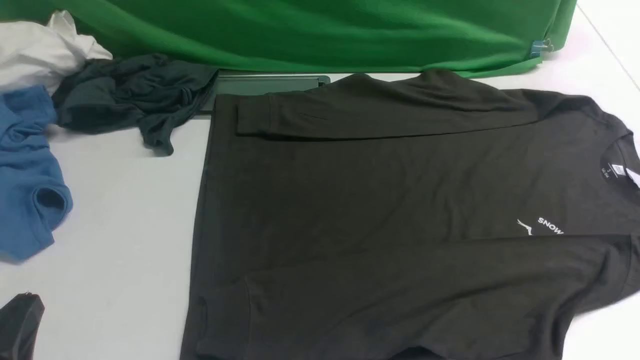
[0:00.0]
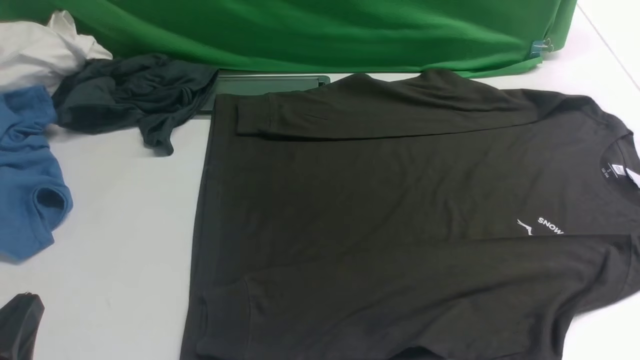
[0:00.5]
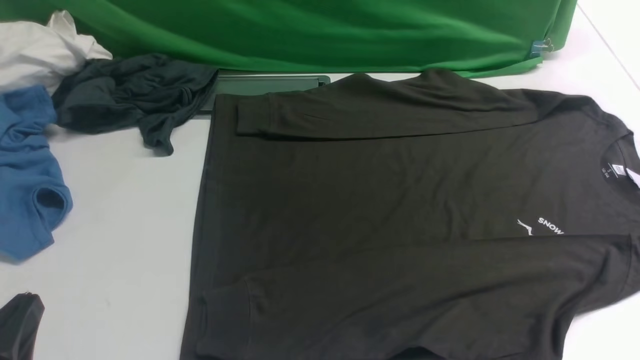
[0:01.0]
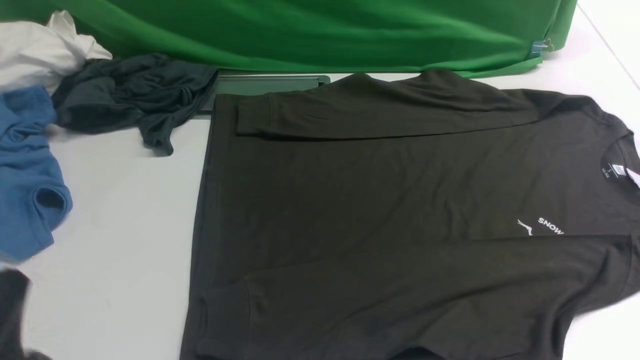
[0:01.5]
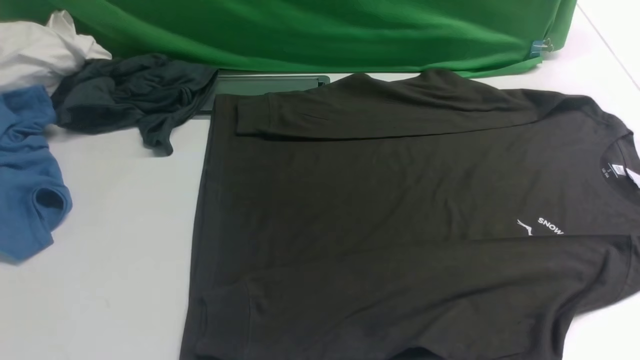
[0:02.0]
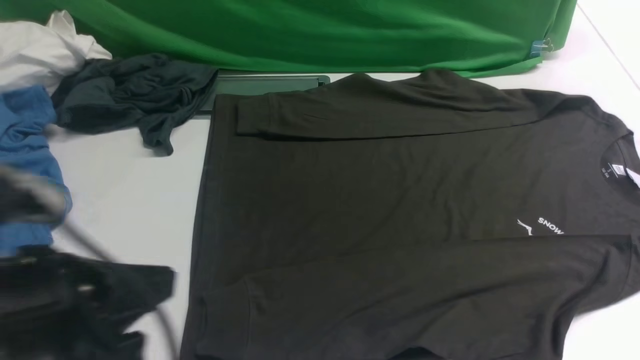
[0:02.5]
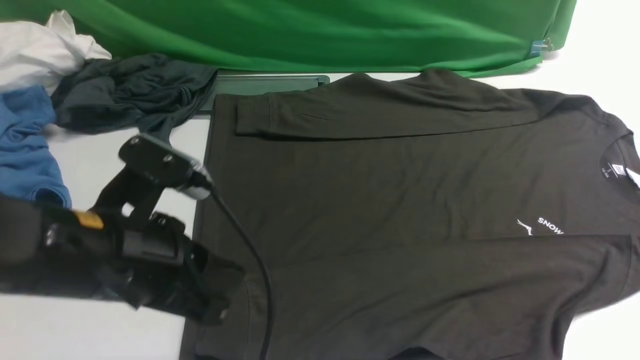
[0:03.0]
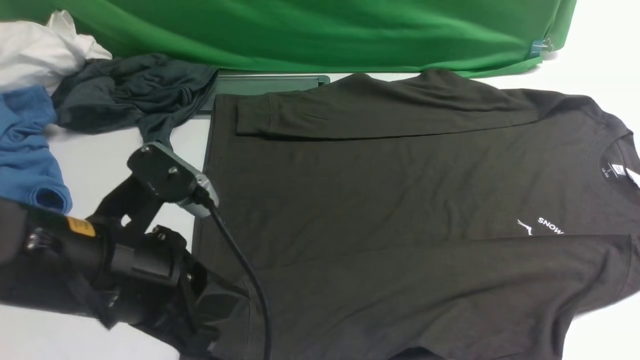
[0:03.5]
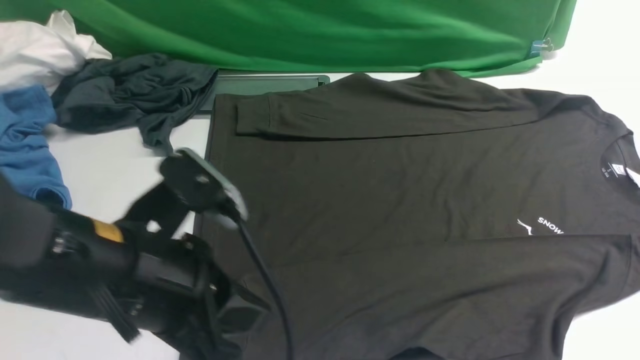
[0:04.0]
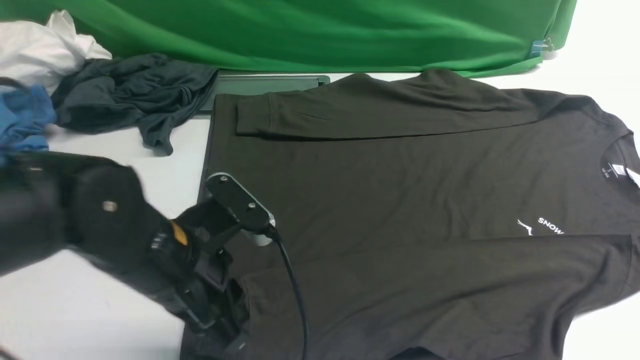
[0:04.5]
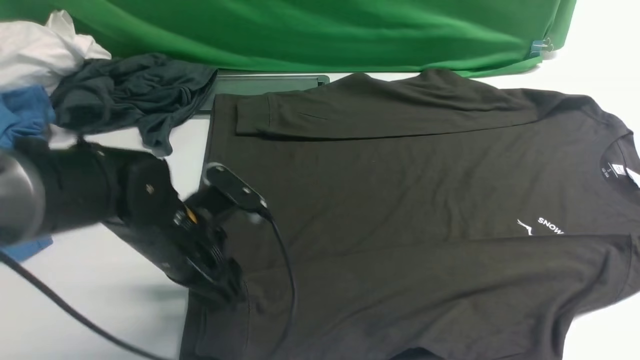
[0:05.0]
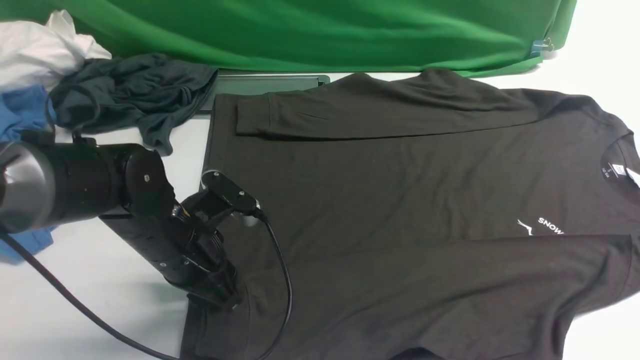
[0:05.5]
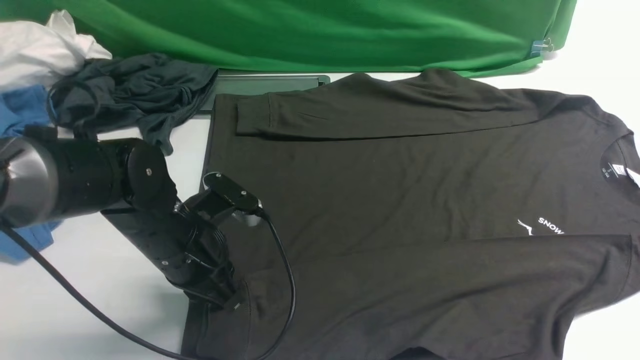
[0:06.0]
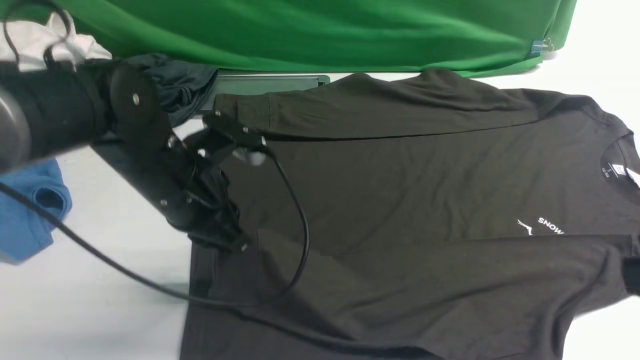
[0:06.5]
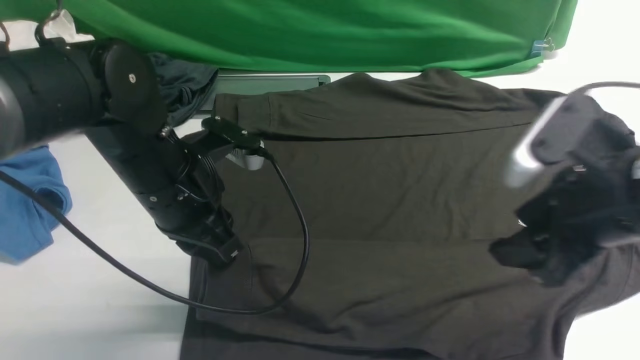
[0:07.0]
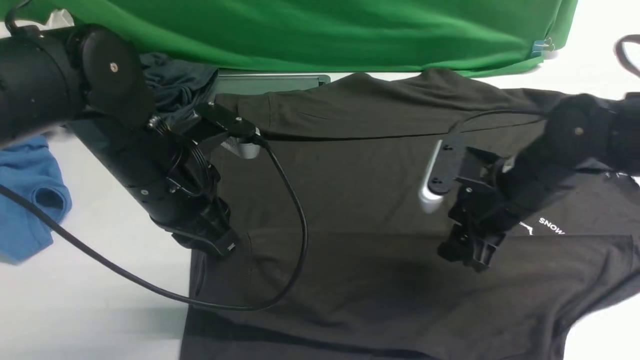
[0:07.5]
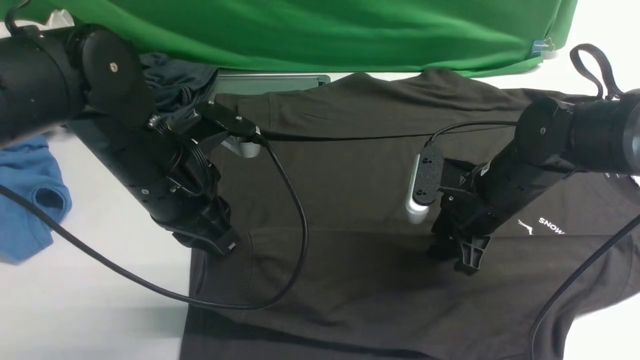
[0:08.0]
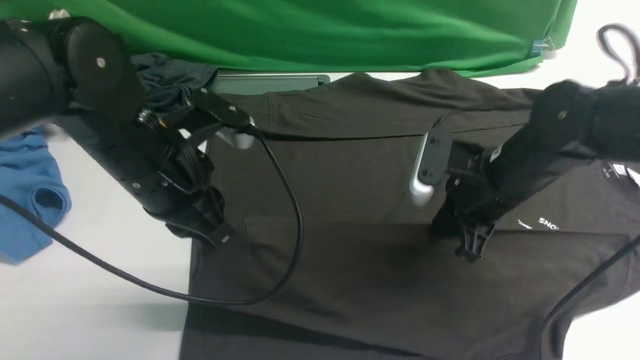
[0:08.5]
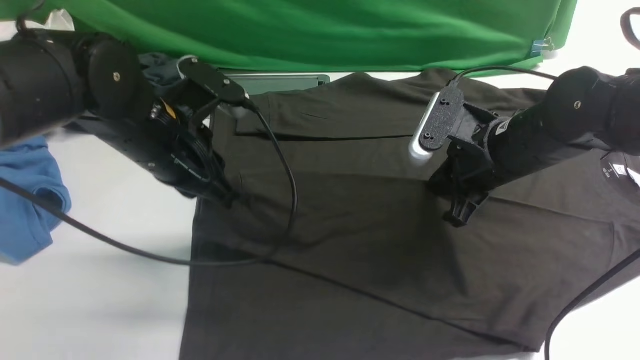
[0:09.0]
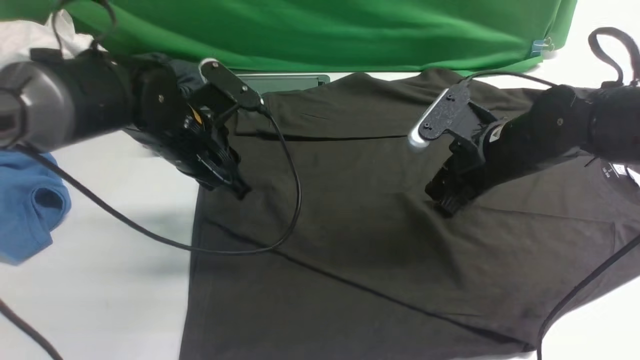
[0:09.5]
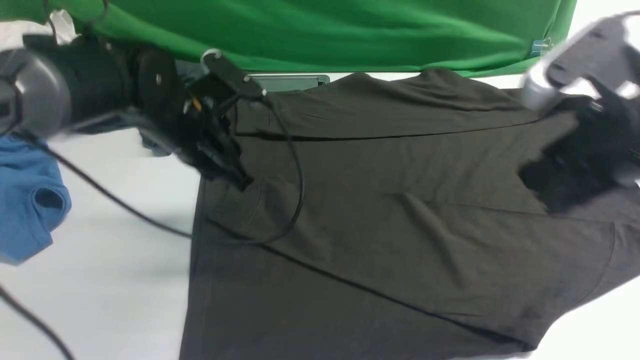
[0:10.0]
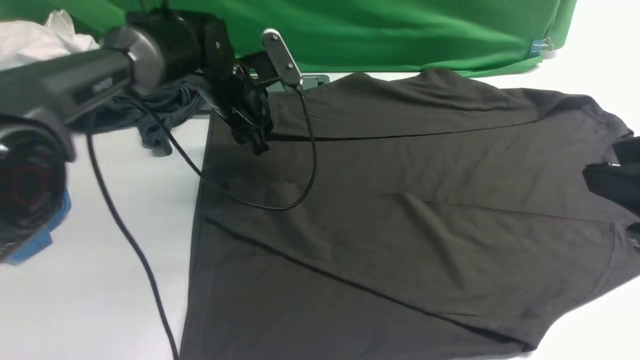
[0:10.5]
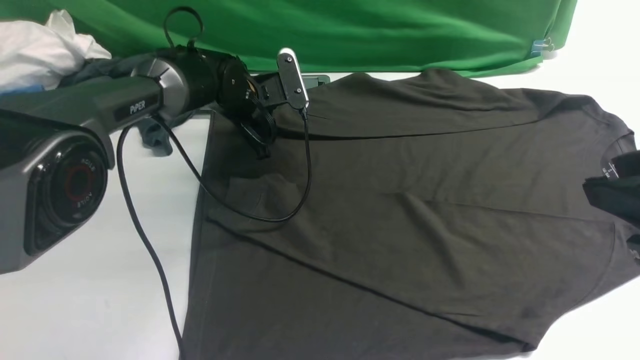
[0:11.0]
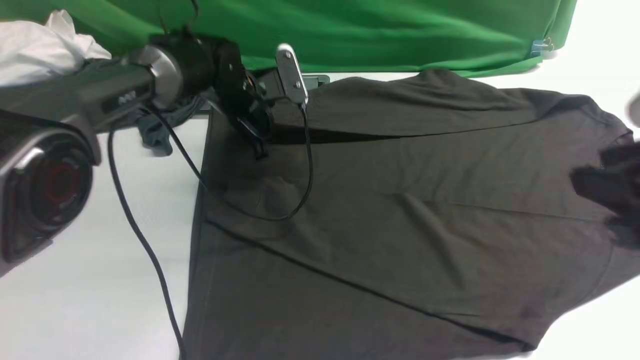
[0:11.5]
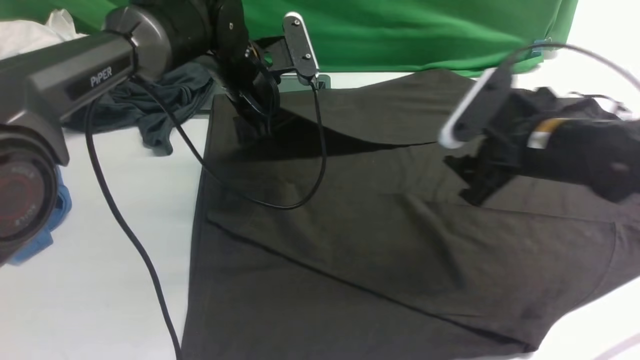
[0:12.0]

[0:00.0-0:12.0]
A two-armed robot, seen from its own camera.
Step, 0:00.0 to 0:06.5: use the left arm to clamp the cuff closest to it.
Step, 0:07.0 to 0:09.5: use the left arm to drag and place the cuff at the centered position on the left edge of the fabric.
Step, 0:10.0 to 0:11.0: use the left arm to clamp the cuff farthest from it.
0:00.0 to 0:02.0: The left gripper heads upward, covering some 10 cm.
0:02.0 to 0:04.0: The right gripper goes some 10 cm upward, while the left gripper heads forward and to the right, covering about 15 cm.
0:04.0 to 0:06.0: The left gripper travels downward and forward by roughly 15 cm, and opens and closes again; the right gripper moves upward, about 5 cm.
0:06.0 to 0:08.0: The right gripper moves forward and downward, about 35 cm, and opens and closes again. The left gripper shifts roughly 10 cm upward.
0:08.0 to 0:10.0: The right gripper shifts some 20 cm upward and backward, and closes, then opens again, while the left gripper goes roughly 10 cm forward, and opens its fingers.
0:10.0 to 0:12.0: The left gripper travels forward by approximately 5 cm, and opens, then closes again. Meanwhile the right gripper moves forward and downward, about 15 cm, and opens up.

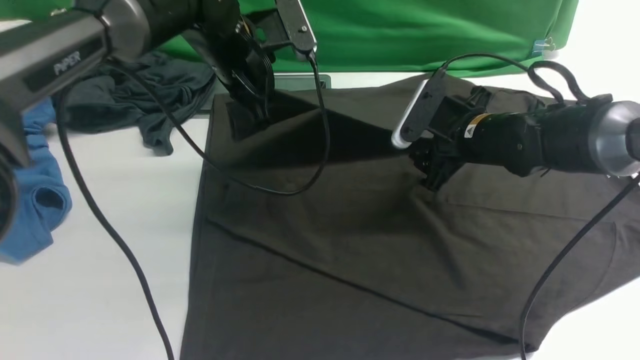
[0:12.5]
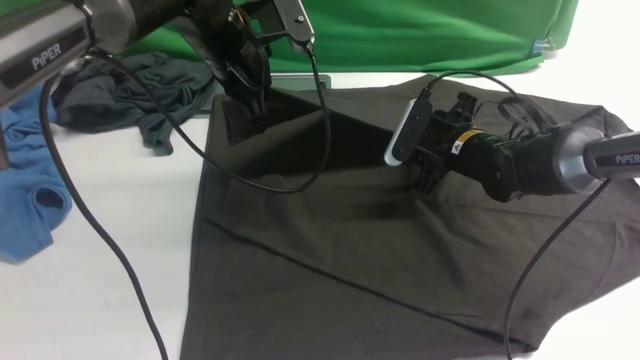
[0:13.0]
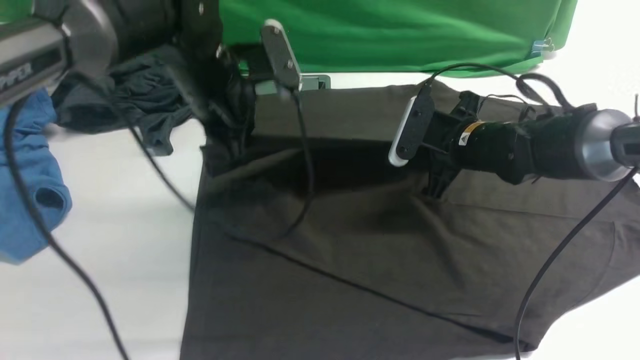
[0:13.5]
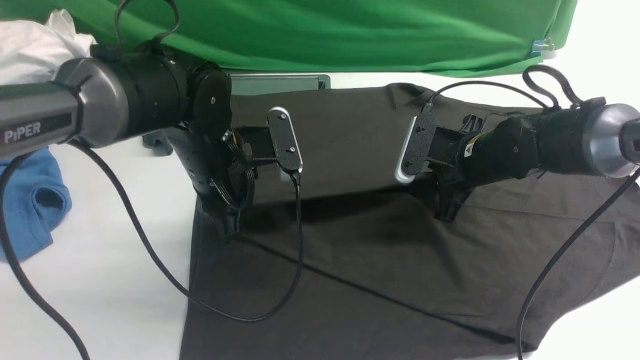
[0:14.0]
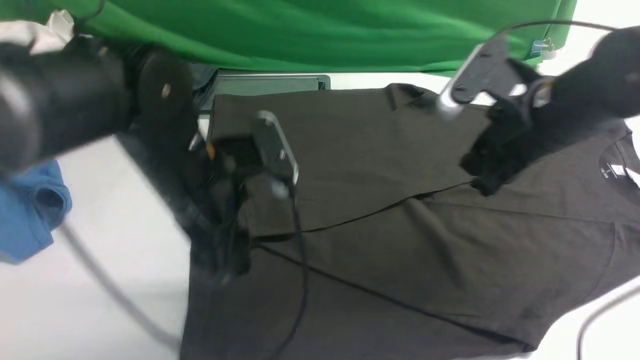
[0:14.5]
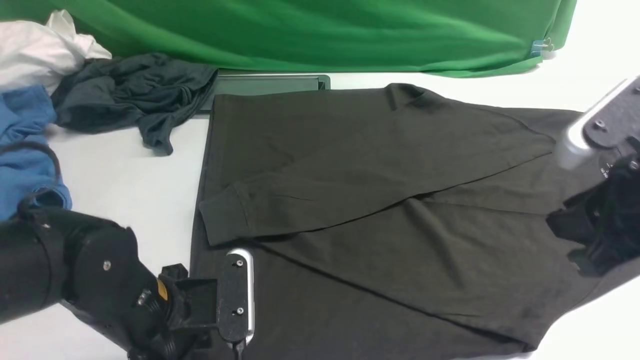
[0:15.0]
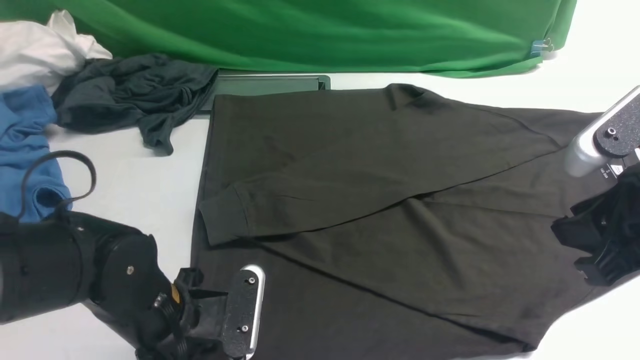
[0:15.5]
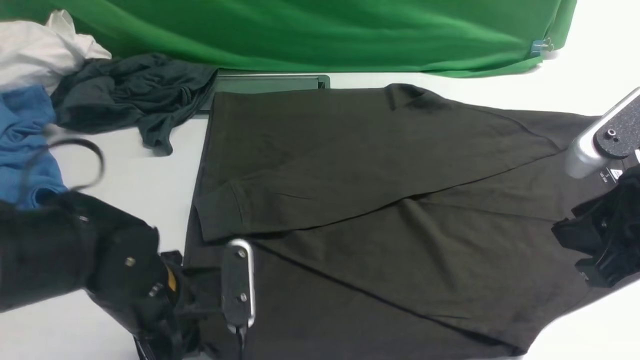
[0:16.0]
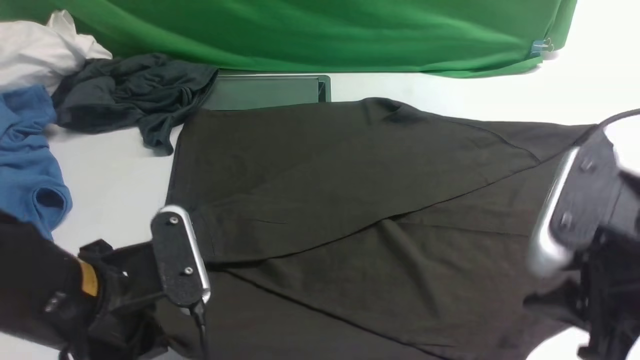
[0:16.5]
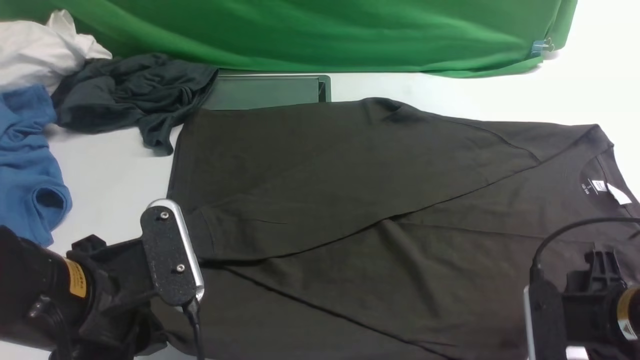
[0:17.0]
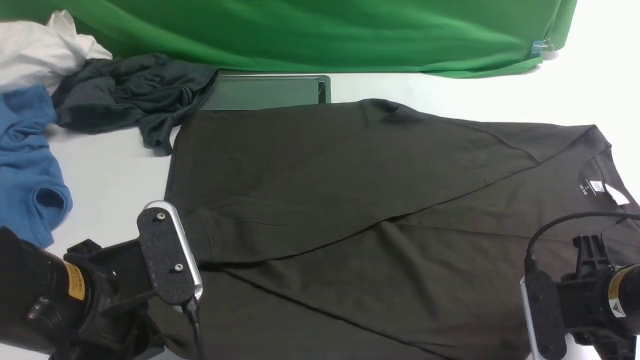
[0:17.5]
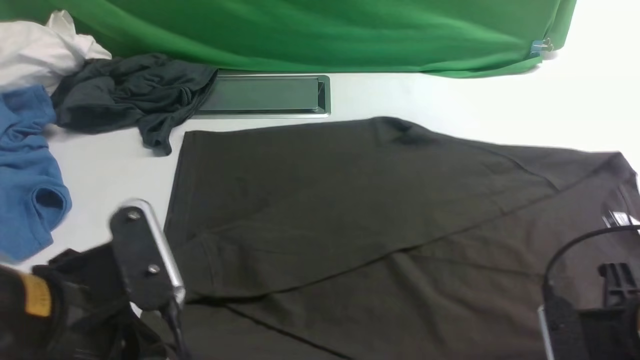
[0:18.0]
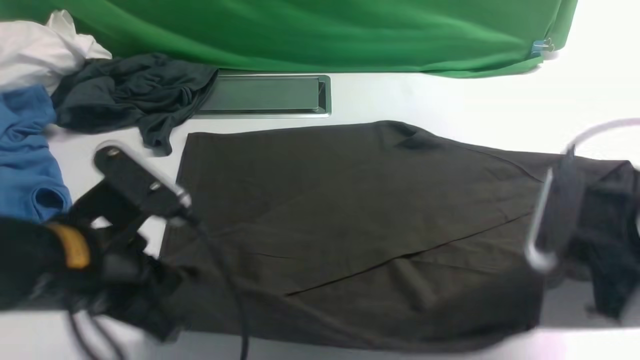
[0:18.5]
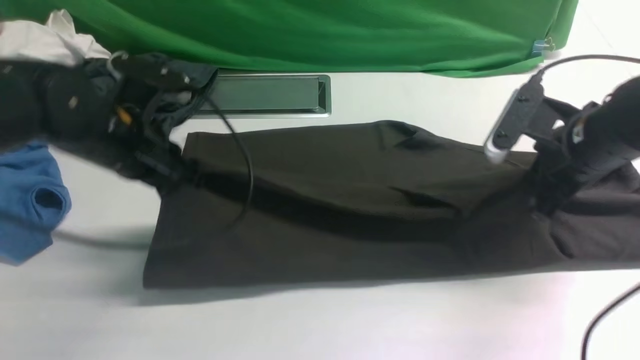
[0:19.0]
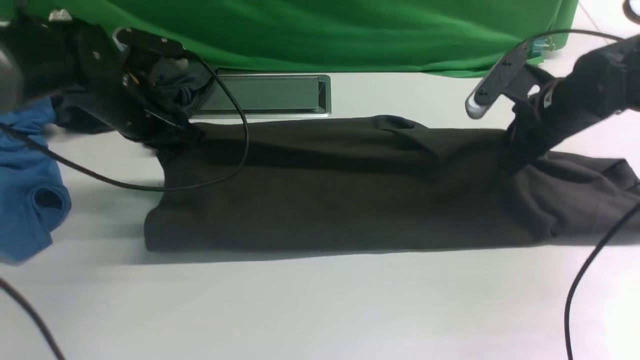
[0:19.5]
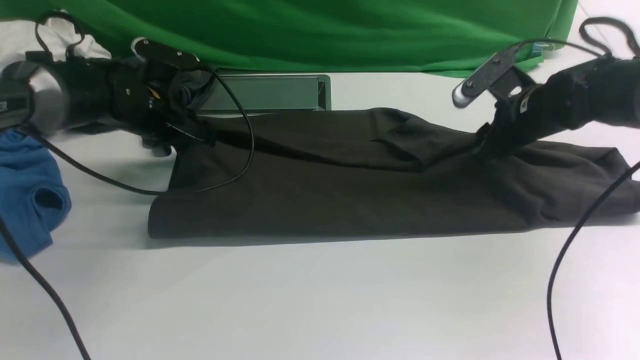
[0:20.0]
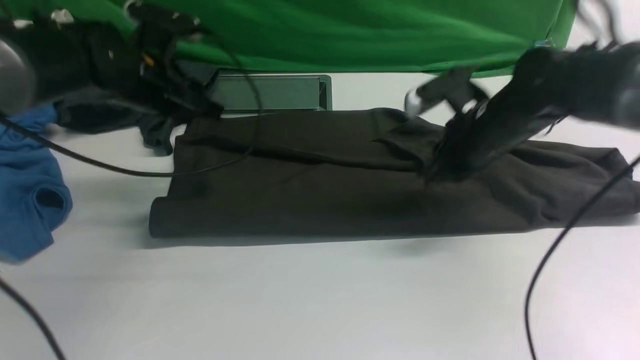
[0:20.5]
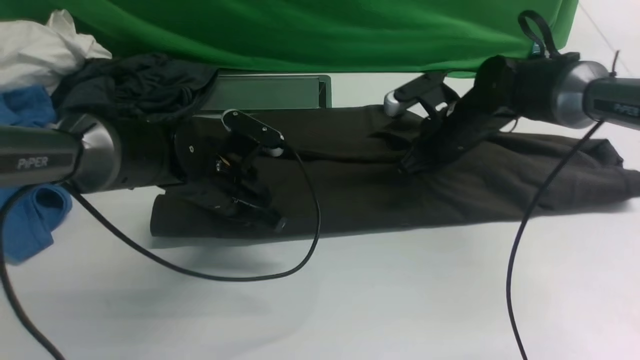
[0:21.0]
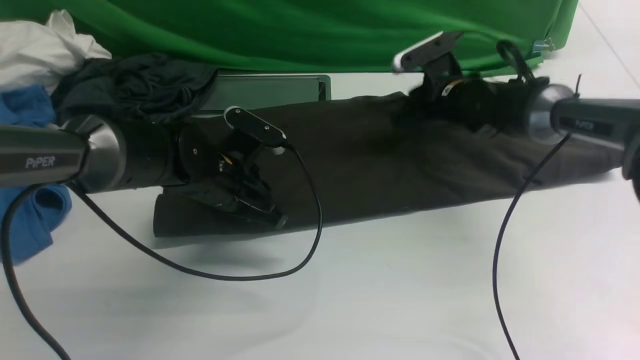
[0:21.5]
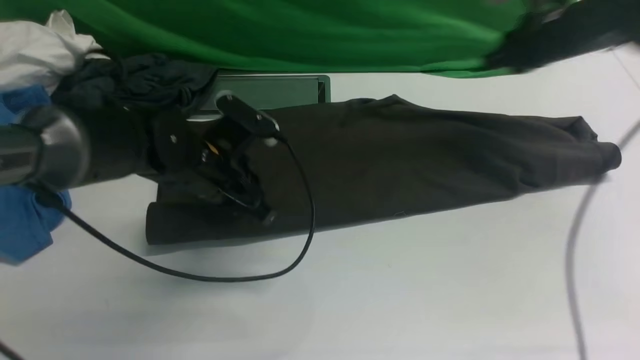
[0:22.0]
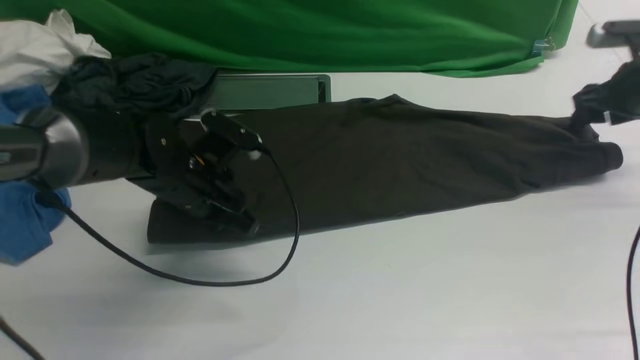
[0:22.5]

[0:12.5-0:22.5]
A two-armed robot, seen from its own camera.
Step, 0:12.5 to 0:14.5: use the left arm to drag and drop the cuff onto the cuff closest to the left arm.
Step, 0:15.0 to 0:18.0: use both arms simultaneously to clamp the lower edge of the clothing fabric.
Step, 0:18.5 to 0:22.0: use both arms to drag the lower edge of the fabric forward and fold it over the upper edge.
0:12.5 to 0:14.5: The right gripper is displaced upward and backward by roughly 15 cm, and closes. Meanwhile the left gripper shifts about 15 cm backward, and opens.
0:14.5 to 0:16.5: The two grippers go approximately 10 cm backward. The left gripper closes up.
0:16.5 to 0:18.5: The right gripper goes some 5 cm forward, moves roughly 15 cm downward and comes back, and closes its fingers.
0:18.5 to 0:20.5: The two grippers go some 20 cm forward. The right gripper opens, then closes once more.
0:20.5 to 0:22.5: The right gripper moves to the right, some 20 cm, and opens up; the left gripper heads downward and backward, covering roughly 10 cm, and closes its fingers.
